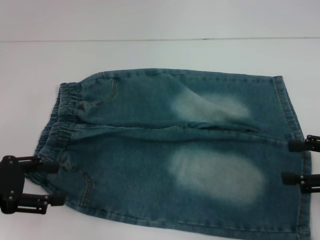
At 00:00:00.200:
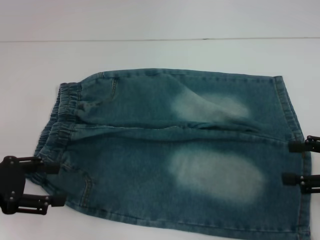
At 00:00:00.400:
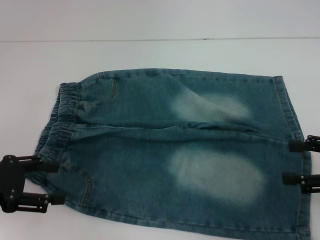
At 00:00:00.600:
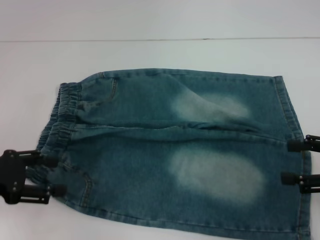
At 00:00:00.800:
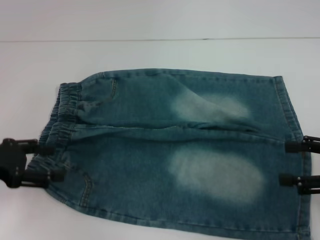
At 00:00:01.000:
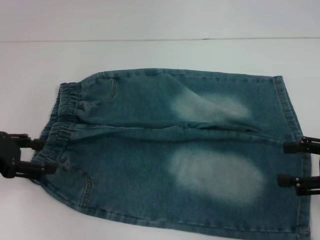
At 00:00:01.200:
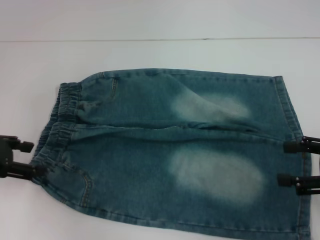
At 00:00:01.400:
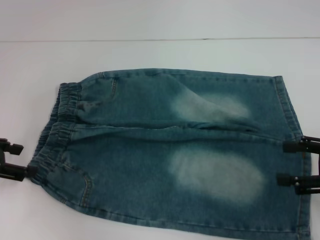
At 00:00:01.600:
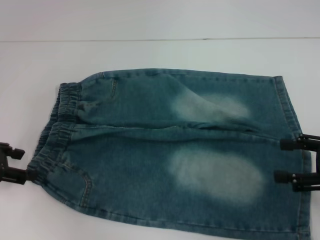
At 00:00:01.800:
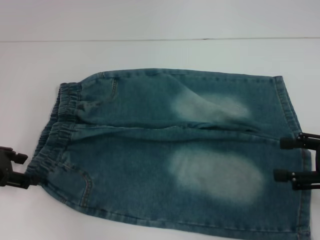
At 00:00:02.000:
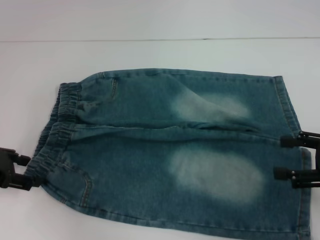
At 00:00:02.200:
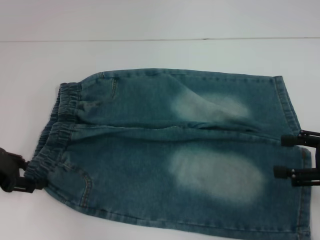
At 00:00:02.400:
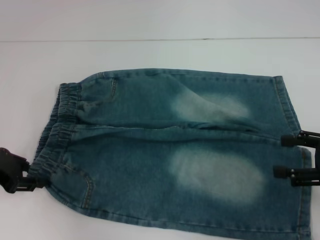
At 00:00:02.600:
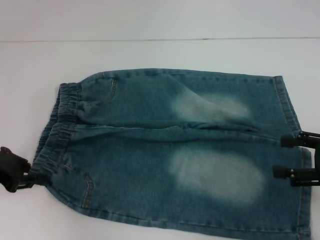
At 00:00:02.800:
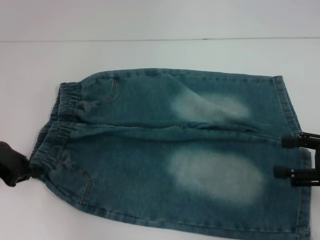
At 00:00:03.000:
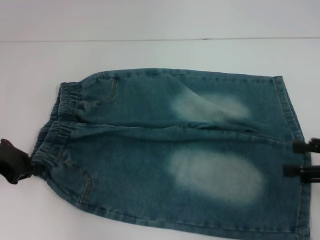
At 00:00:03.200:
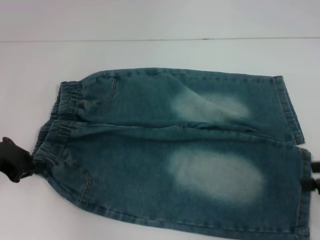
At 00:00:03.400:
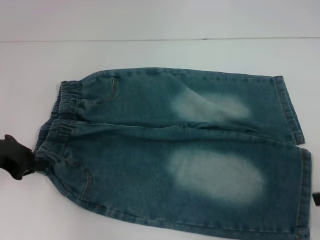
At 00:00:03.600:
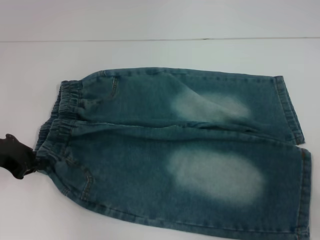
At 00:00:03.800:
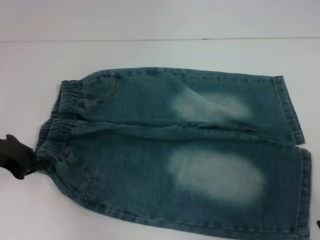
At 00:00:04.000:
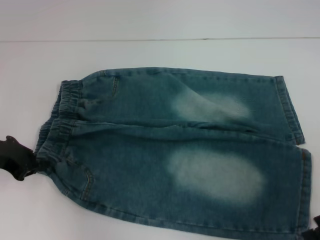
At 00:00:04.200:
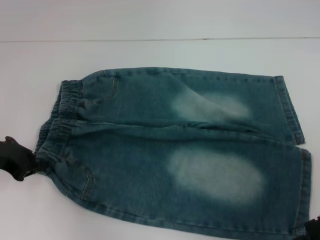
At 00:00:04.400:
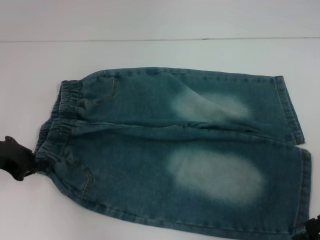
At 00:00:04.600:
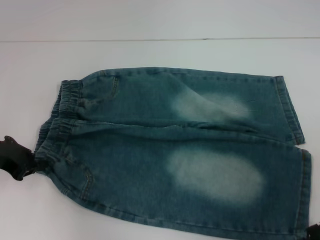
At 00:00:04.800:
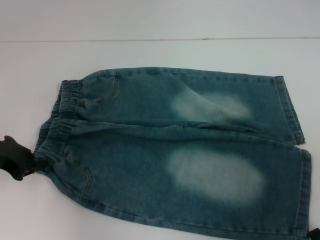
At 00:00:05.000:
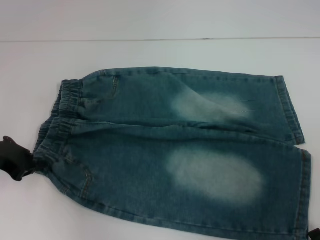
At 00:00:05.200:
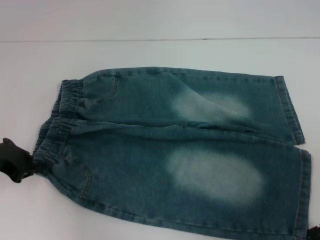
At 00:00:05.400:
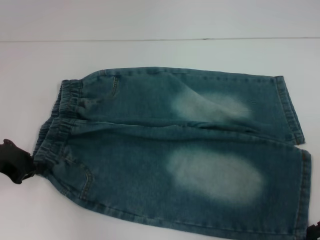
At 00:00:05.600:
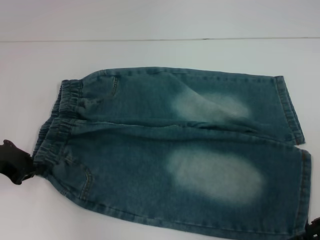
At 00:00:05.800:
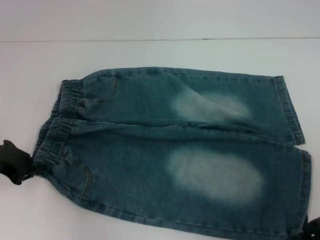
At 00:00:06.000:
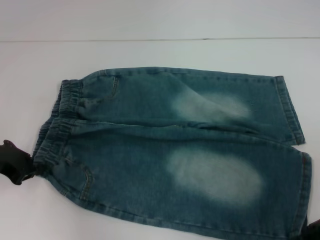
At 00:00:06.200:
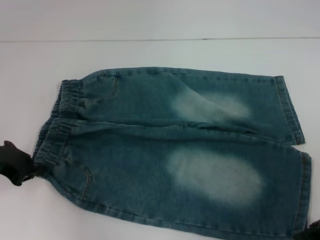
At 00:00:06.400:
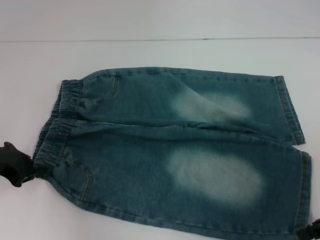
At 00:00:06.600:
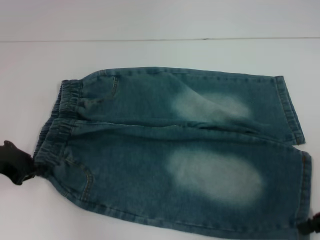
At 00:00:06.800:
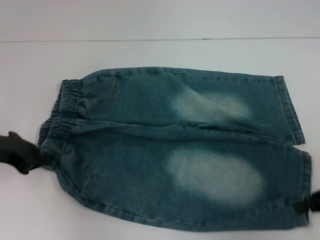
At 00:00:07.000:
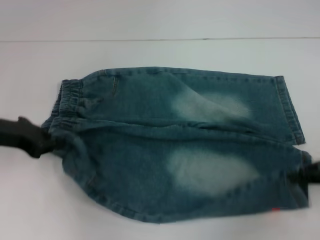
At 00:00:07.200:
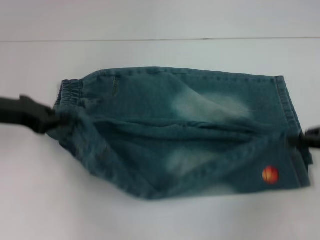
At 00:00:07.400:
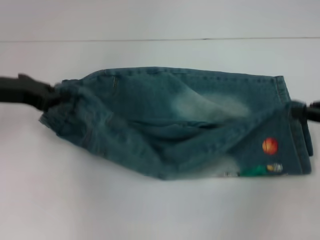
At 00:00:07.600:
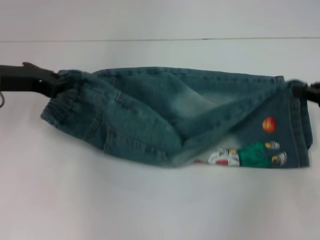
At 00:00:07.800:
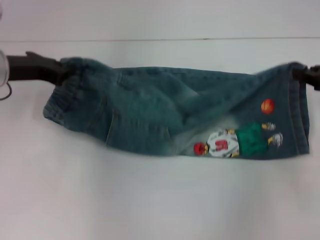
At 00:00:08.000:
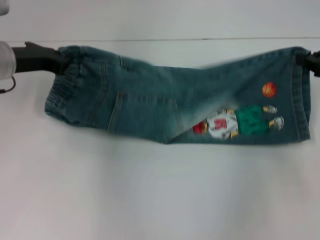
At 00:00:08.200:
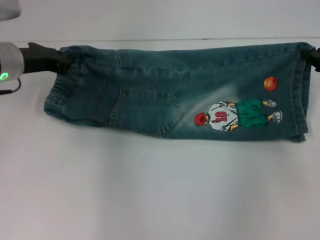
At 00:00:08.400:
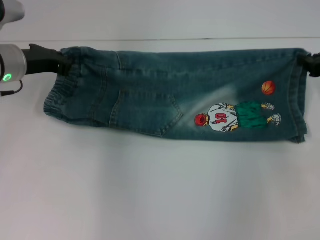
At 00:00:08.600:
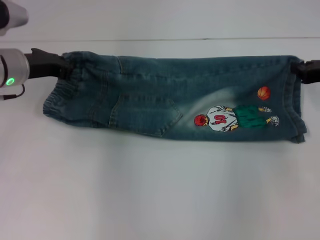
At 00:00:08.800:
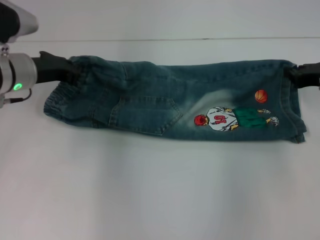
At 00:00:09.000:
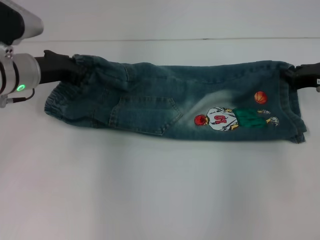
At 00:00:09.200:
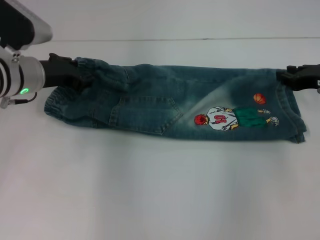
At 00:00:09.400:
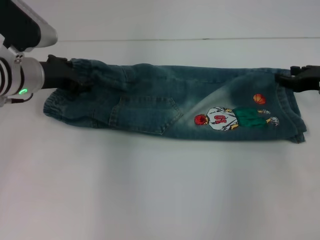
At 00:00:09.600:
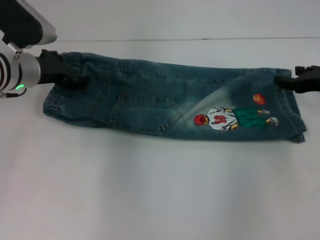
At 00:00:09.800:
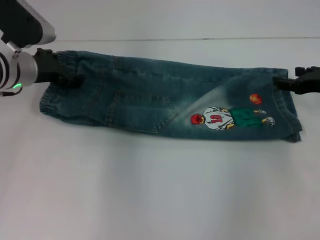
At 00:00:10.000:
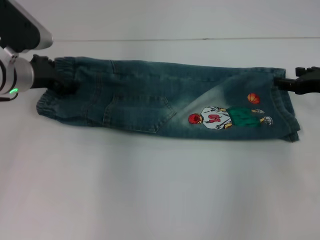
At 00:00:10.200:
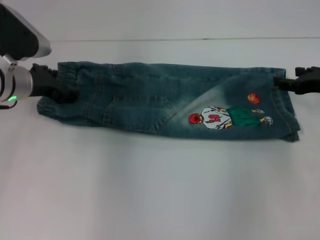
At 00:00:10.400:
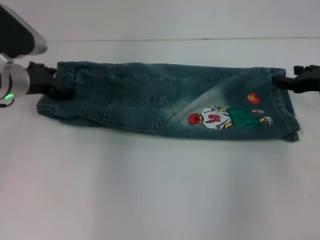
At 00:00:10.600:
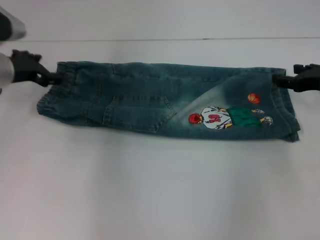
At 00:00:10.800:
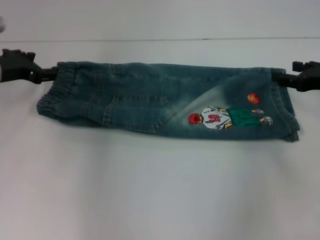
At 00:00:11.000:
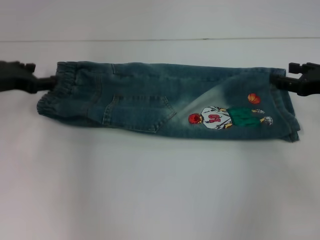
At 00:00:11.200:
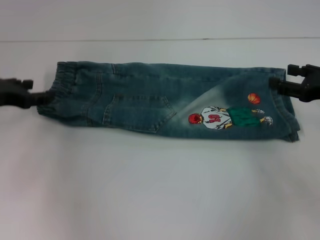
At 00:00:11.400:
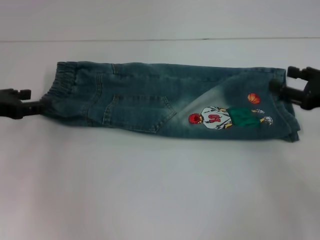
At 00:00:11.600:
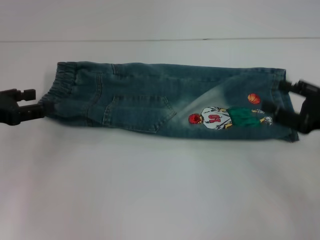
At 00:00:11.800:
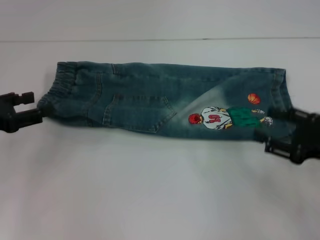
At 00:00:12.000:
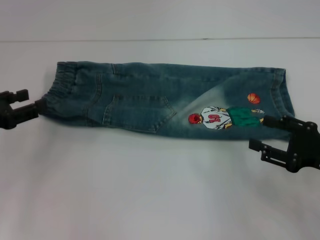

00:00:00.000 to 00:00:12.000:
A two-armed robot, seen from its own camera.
Step, 00:00:00.000 to 00:00:03.000: Hold the lower left waistband with your left hand.
Step, 00:00:06.600 to 00:00:10.400: Fold upward with your right hand.
00:00:00.000 to 00:00:01.600: The left gripper is displaced forward by approximately 5 cm.
00:00:01.600 to 00:00:03.000: The left gripper closes up.
00:00:06.000 to 00:00:07.600: The grippers both shift forward and upward by approximately 10 cm. The right gripper closes up.
00:00:07.600 to 00:00:09.000: The left gripper shifts by roughly 5 cm, while the right gripper is displaced forward by roughly 5 cm.
00:00:09.000 to 00:00:10.400: The right gripper opens its fingers, while the left gripper opens up.
00:00:10.400 to 00:00:12.000: The right gripper heads backward, covering approximately 10 cm. Meanwhile the left gripper travels backward and to the left by about 15 cm.

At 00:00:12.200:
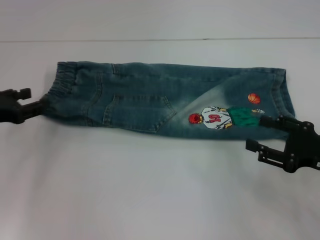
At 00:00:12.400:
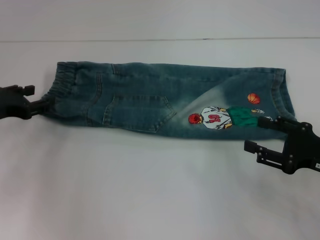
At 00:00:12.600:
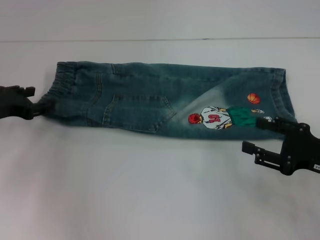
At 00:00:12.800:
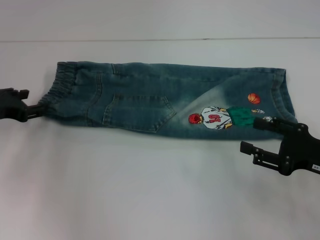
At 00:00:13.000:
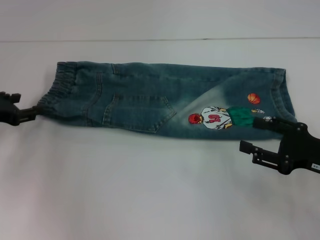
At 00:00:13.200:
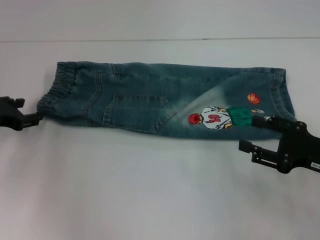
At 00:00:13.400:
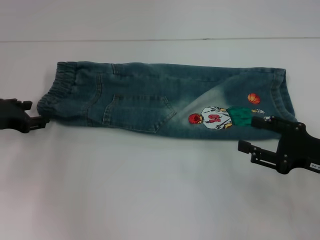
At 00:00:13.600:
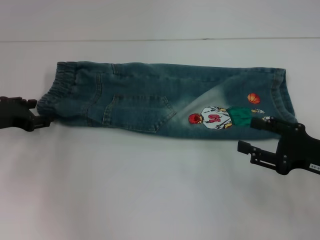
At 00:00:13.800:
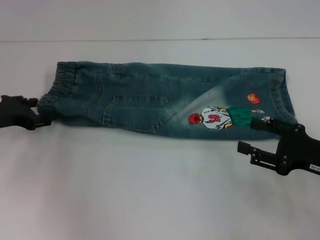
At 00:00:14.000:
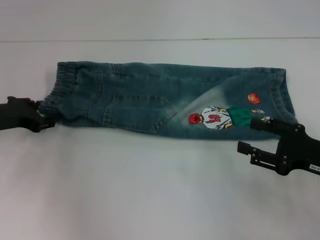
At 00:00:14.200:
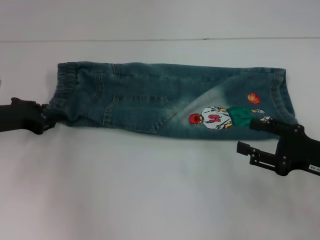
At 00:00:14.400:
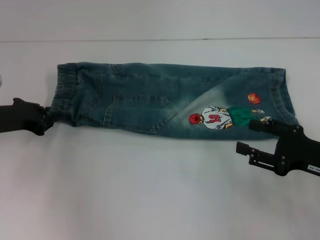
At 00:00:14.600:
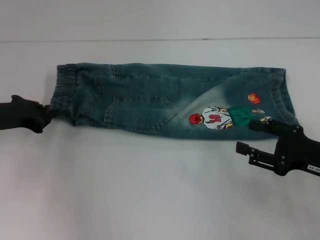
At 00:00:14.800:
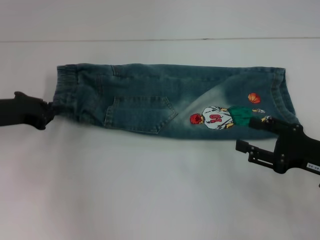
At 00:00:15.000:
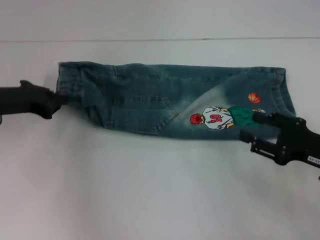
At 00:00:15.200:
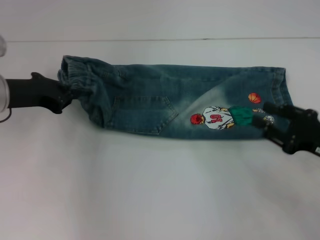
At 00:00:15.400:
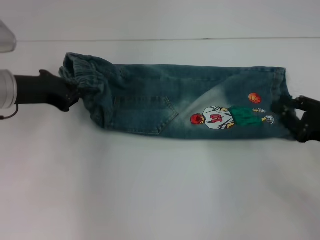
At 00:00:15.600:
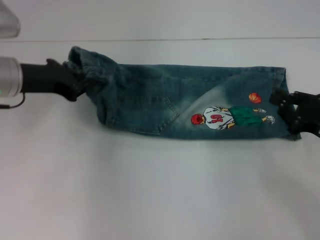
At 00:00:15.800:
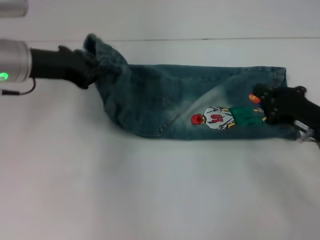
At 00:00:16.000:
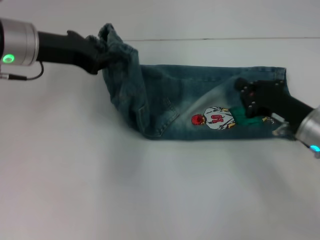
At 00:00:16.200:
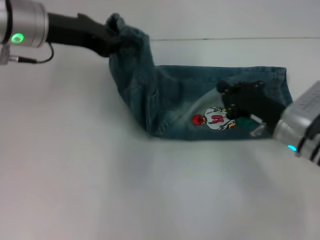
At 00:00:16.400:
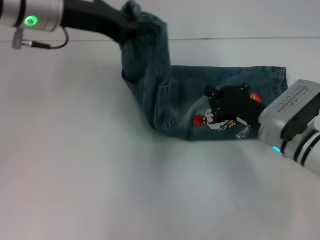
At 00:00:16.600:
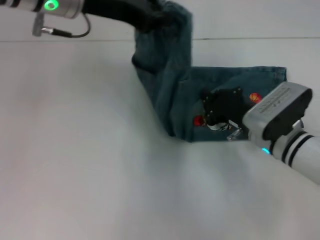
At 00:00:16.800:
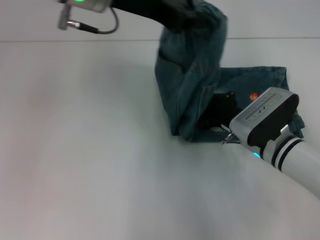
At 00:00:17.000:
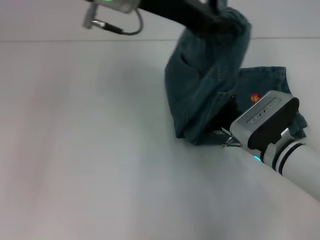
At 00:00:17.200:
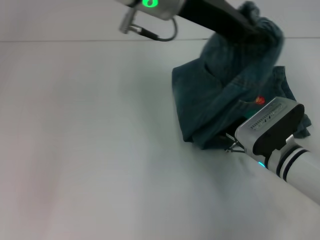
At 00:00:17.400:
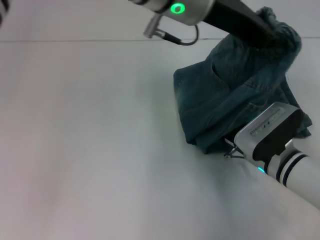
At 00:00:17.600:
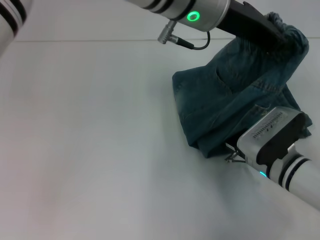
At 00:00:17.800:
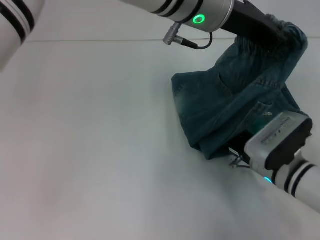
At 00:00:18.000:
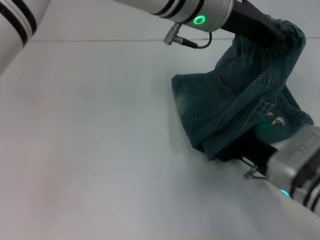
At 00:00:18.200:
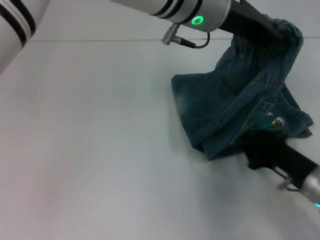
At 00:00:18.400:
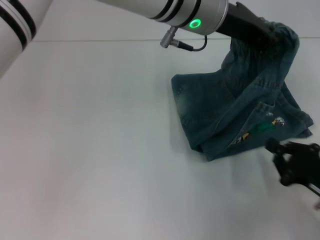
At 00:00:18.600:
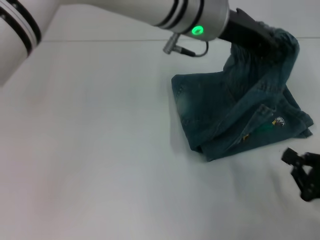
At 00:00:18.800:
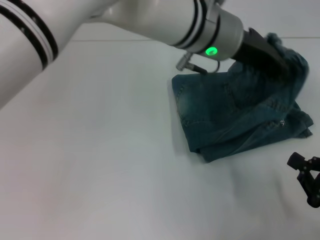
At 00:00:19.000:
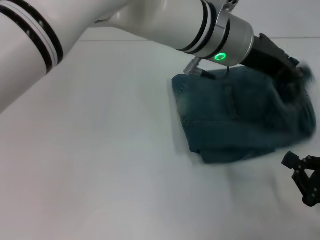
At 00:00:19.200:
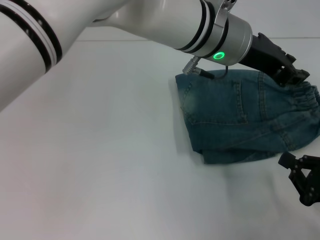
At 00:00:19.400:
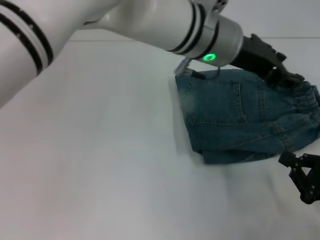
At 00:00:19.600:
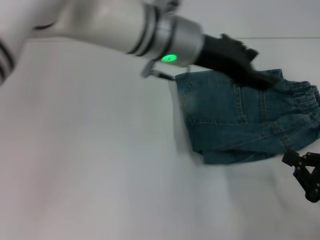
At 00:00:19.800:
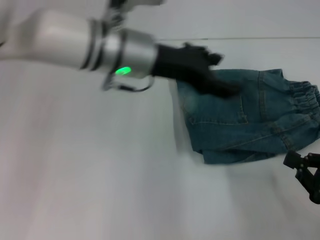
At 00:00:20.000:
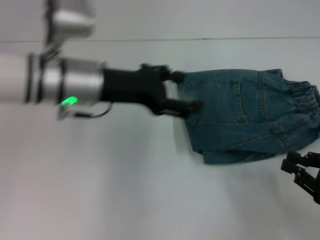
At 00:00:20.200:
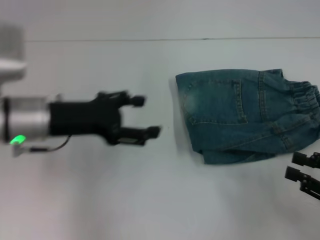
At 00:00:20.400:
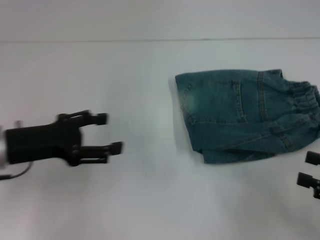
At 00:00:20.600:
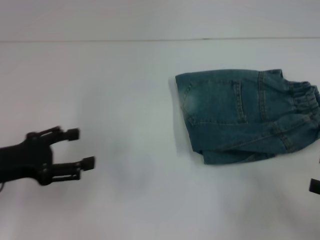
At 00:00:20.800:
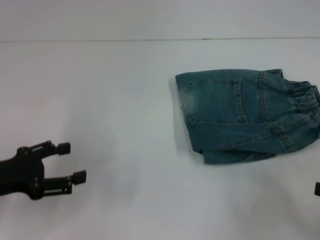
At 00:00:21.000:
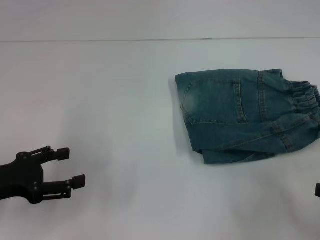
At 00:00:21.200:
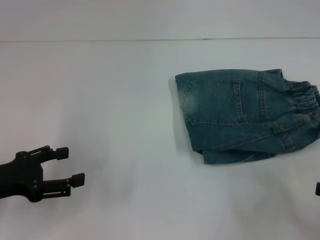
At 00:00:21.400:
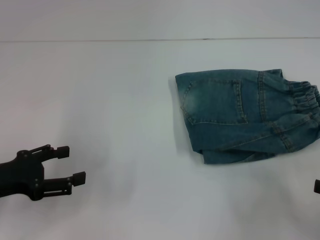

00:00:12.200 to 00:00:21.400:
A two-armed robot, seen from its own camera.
Step, 00:00:12.200 to 00:00:14.800: Hold the waistband with your left hand.
Step, 00:00:15.000 to 00:00:18.000: Press the middle of the pants with your right hand.
Step, 00:00:18.400 to 00:00:19.400: Fold to the right with your left hand.
00:00:12.200 to 00:00:13.800: The left gripper ends up approximately 5 cm from where it was.
00:00:13.800 to 00:00:15.200: The left gripper heads upward, covering approximately 5 cm, and closes.
00:00:15.200 to 00:00:16.800: The right gripper heads to the left and forward, covering about 15 cm, and closes; the left gripper is displaced to the right and upward by roughly 20 cm.
00:00:16.800 to 00:00:18.400: The left gripper shifts some 10 cm to the right. Meanwhile the right gripper travels to the right and backward by approximately 15 cm.
00:00:18.400 to 00:00:19.800: The right gripper changes place by roughly 5 cm. Meanwhile the left gripper moves to the left and downward, approximately 10 cm, and opens its fingers.
00:00:19.800 to 00:00:21.400: The right gripper moves upward, roughly 5 cm, and opens up; the left gripper is displaced to the left, backward and downward by some 30 cm.
